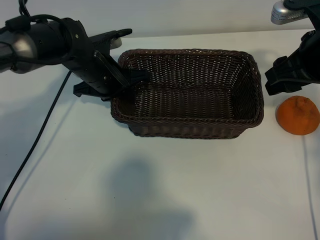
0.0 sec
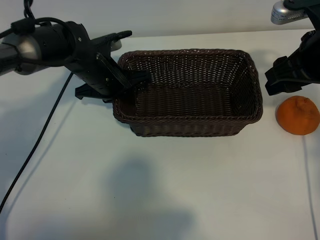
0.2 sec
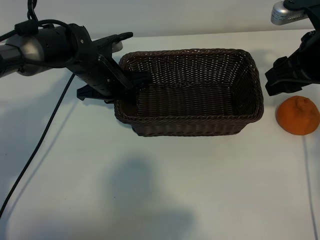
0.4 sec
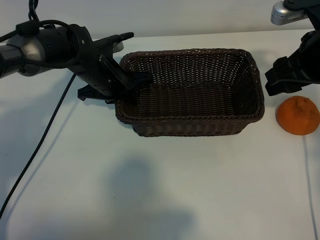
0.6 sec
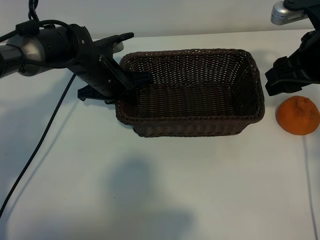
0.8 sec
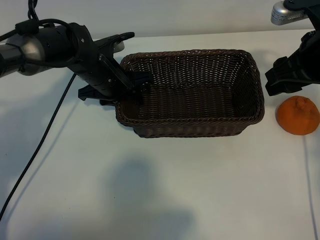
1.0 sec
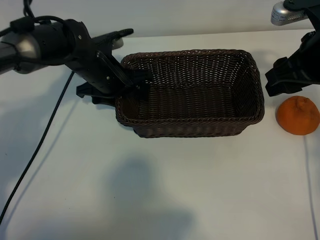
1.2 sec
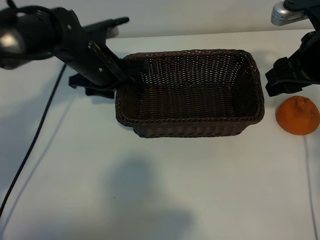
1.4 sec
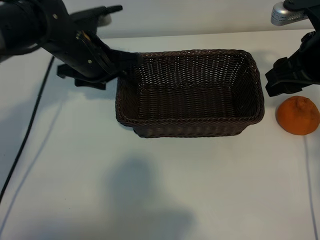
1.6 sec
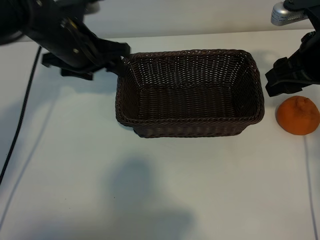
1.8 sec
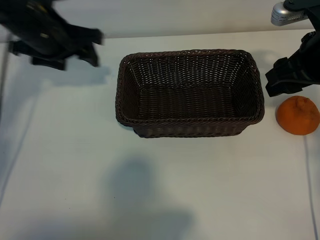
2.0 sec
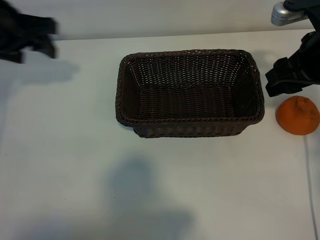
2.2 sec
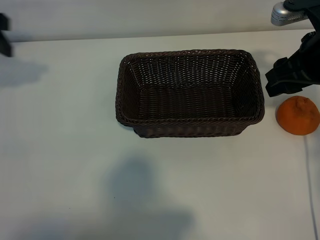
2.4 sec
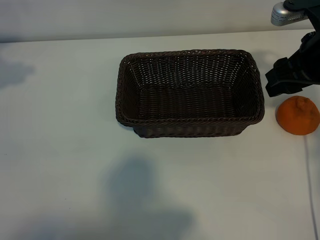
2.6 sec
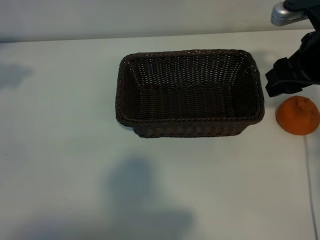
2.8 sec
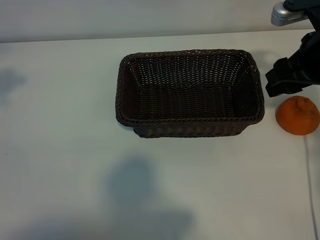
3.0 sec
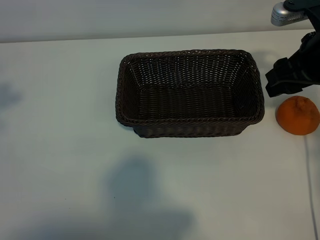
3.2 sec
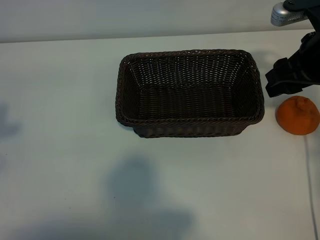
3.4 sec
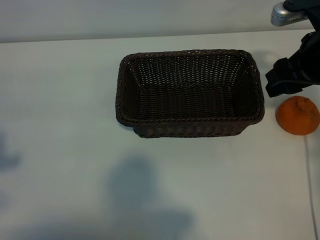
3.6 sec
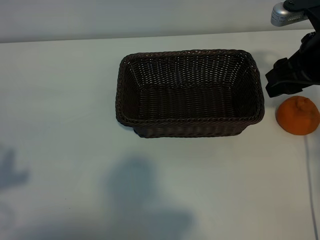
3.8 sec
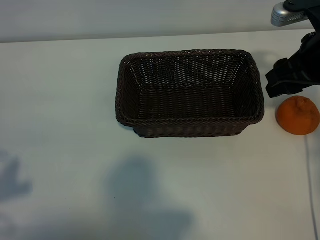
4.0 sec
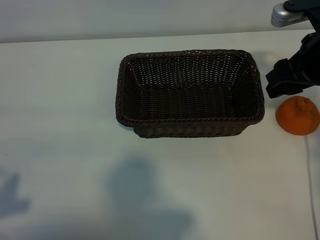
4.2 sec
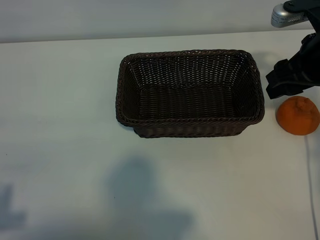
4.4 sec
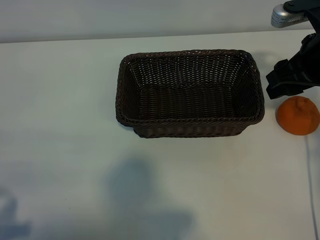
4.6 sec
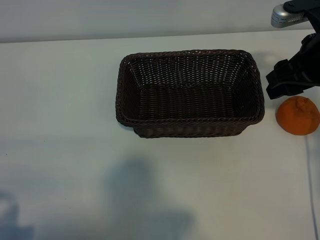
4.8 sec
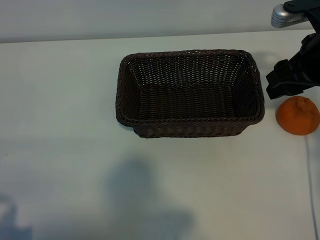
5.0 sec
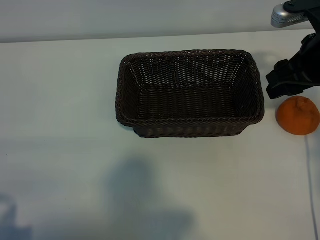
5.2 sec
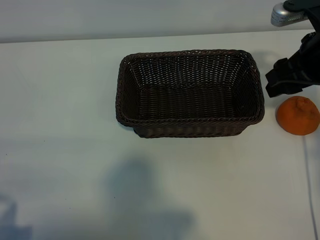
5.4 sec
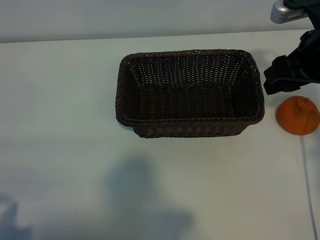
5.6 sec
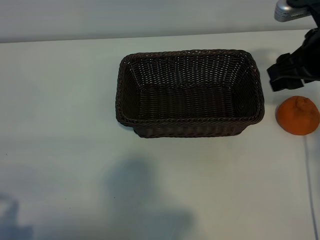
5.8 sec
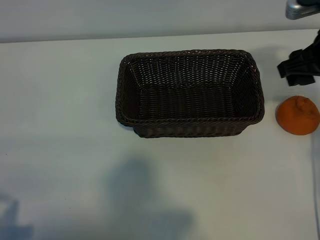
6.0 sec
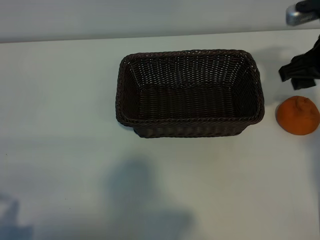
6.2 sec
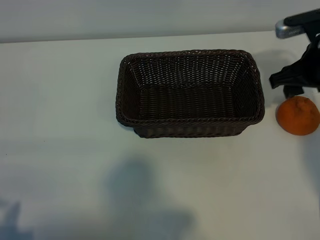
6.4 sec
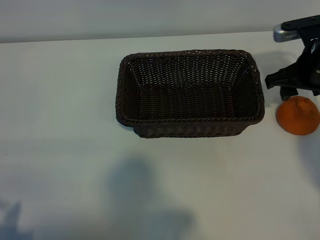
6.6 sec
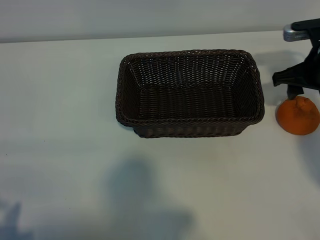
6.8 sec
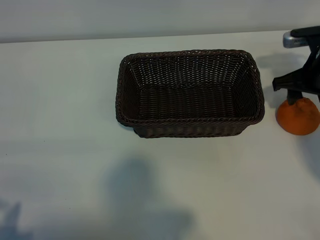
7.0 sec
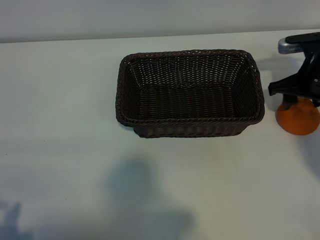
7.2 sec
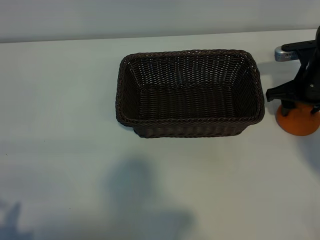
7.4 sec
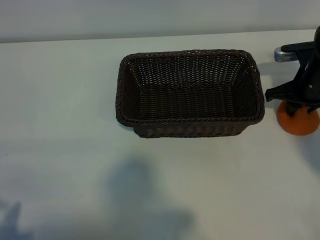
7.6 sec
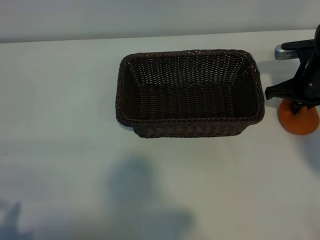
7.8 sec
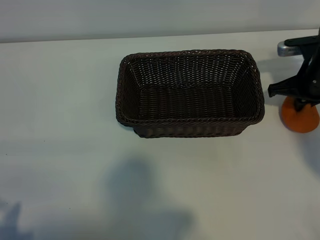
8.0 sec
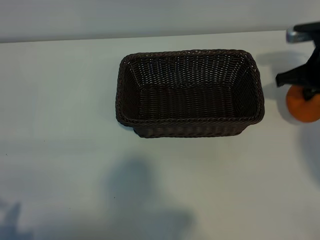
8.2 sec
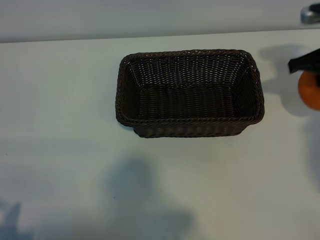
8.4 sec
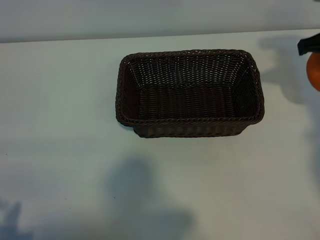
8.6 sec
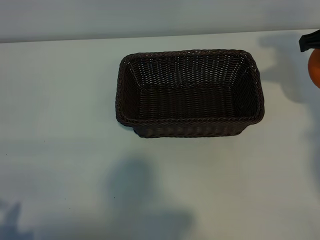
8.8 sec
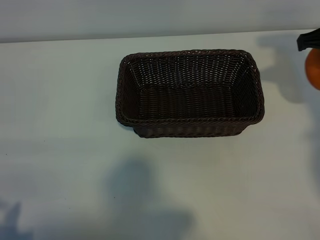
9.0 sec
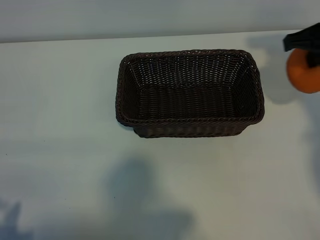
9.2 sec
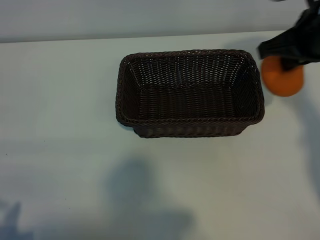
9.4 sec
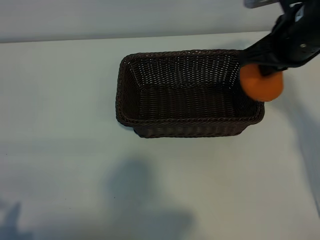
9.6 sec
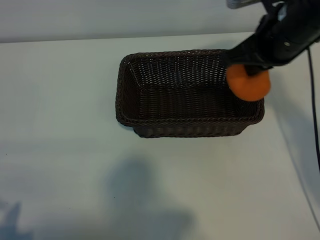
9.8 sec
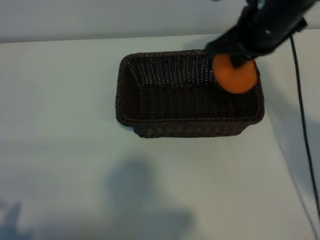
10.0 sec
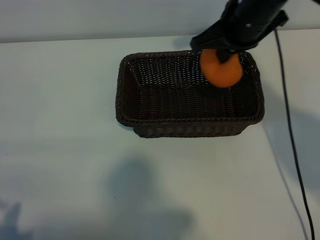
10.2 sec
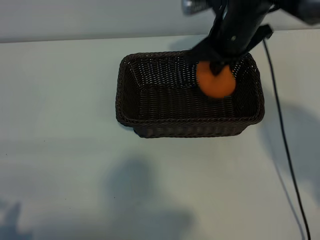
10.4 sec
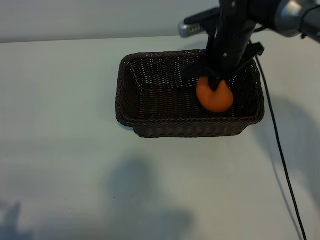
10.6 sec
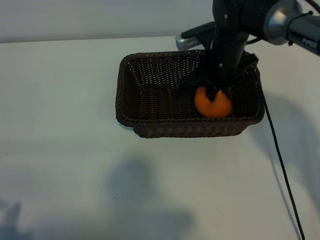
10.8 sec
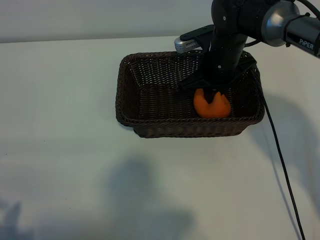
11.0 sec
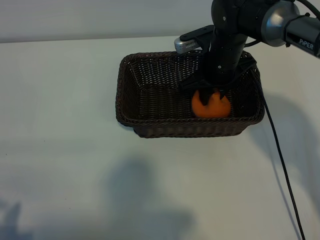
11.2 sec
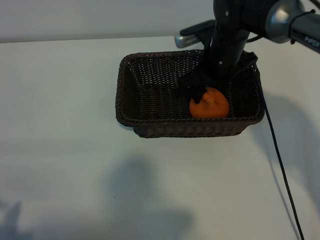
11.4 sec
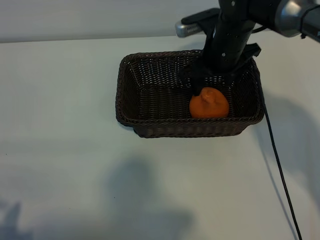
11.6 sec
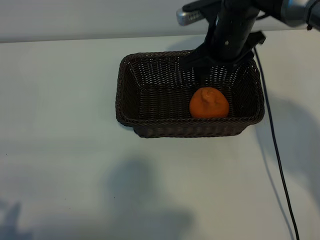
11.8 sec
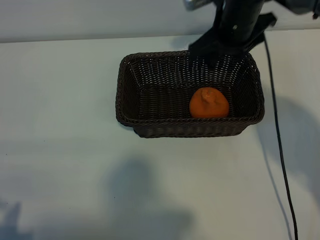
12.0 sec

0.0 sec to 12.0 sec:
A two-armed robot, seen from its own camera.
Task of the whole recording: pick up the orange and put it into the basket.
Step, 1.0 sec to 7.6 sec: Grasp the orange with right gripper.
Step, 7.8 sec to 11.2 sec: Place the orange in the basket with right gripper.

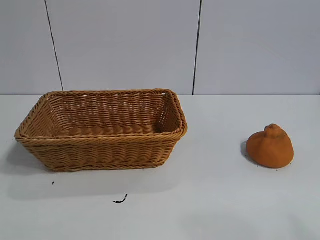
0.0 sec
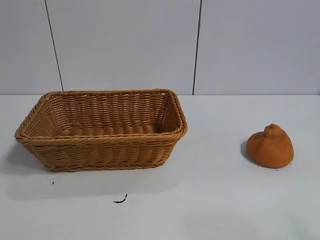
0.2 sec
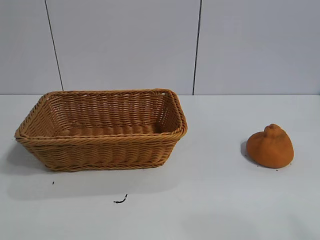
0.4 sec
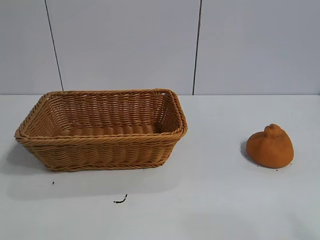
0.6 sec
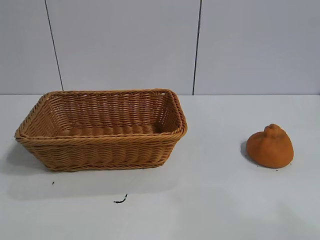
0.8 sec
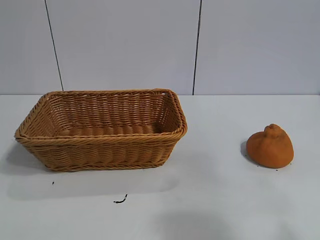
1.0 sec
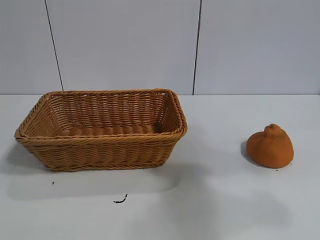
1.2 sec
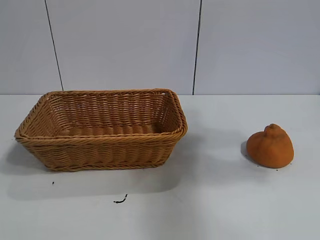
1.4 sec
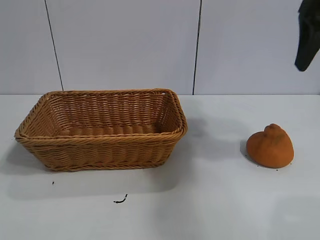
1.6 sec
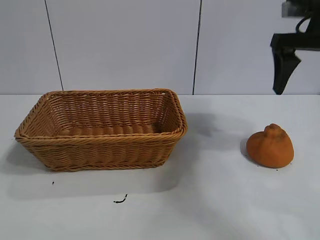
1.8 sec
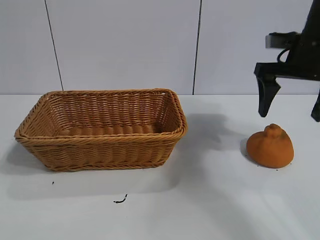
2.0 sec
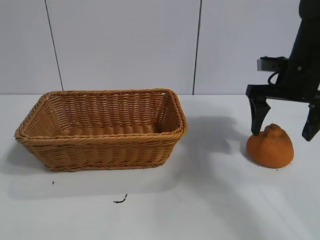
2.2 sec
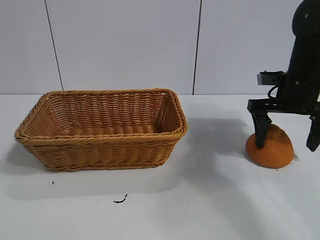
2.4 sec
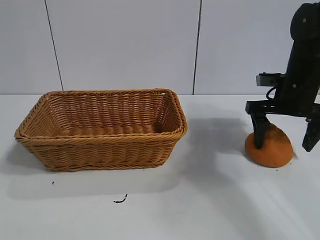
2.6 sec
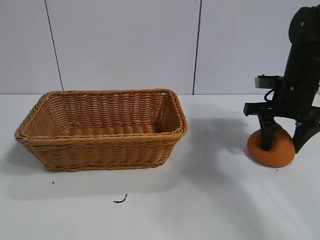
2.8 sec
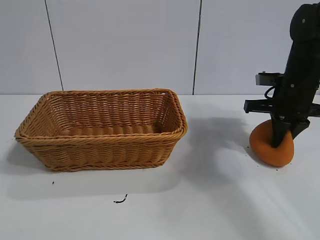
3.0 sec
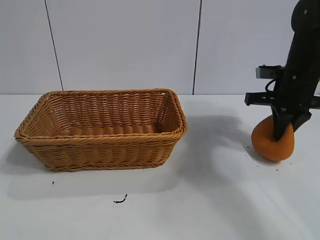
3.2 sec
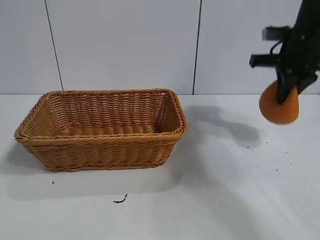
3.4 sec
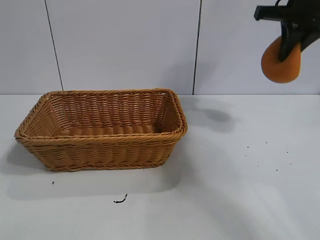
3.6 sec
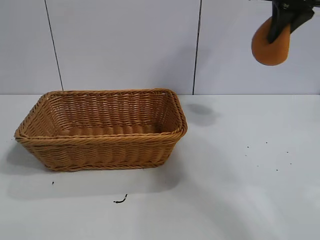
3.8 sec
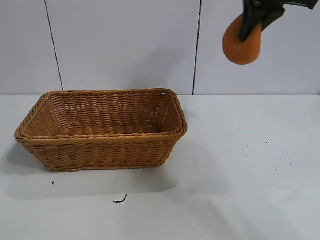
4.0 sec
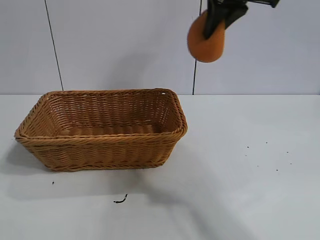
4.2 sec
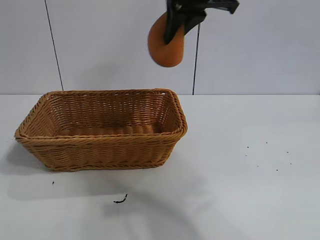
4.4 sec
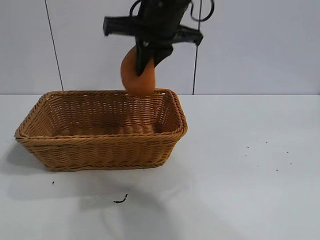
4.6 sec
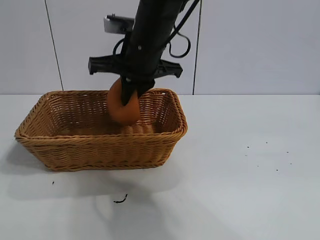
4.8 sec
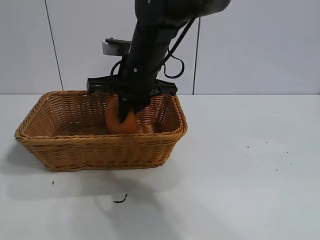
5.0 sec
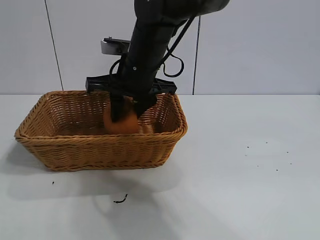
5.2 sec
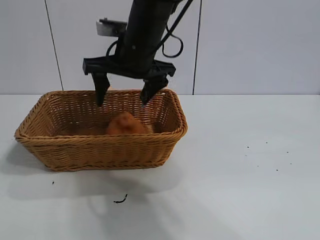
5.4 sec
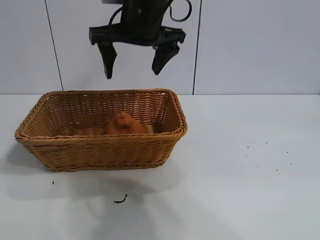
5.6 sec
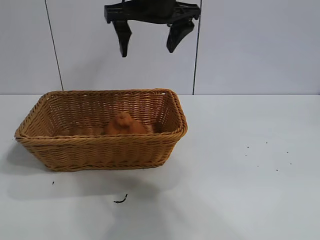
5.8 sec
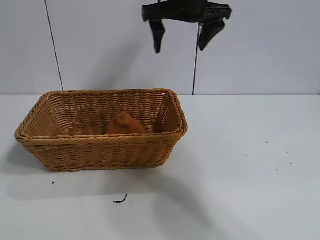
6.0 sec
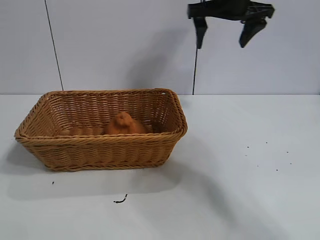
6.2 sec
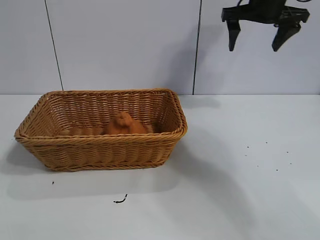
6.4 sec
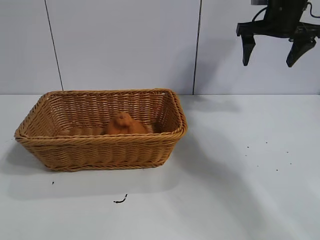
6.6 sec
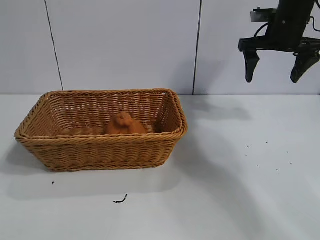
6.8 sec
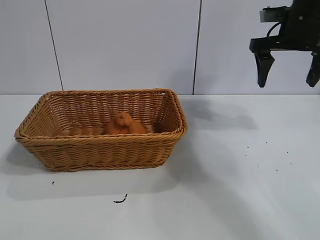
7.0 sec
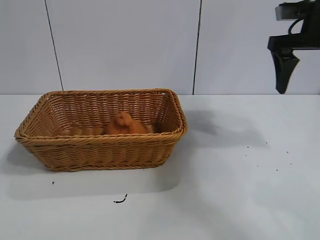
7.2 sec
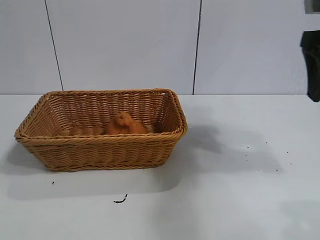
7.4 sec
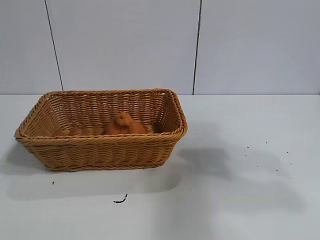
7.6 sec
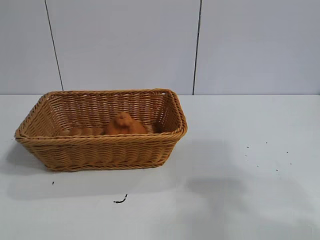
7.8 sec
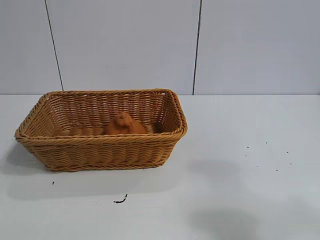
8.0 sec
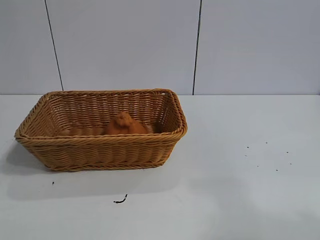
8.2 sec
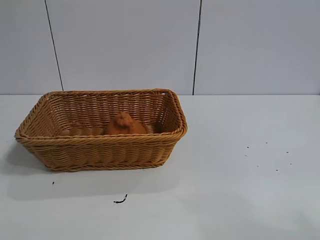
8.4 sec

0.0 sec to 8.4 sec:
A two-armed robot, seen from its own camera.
Task of the whole recording: pick up the orange and put it into the basket.
Step, 0.6 sec to 3.0 sec: Grasp the orange with right gripper.
Step, 3.2 sec to 5.4 sec: Place the orange in the basket with right gripper.
